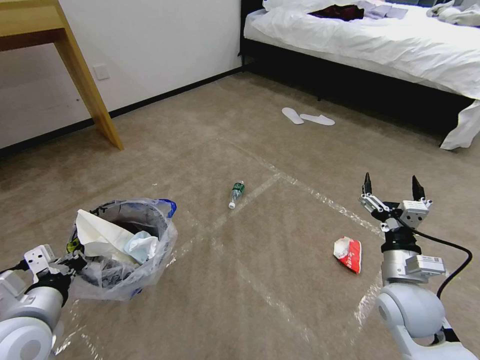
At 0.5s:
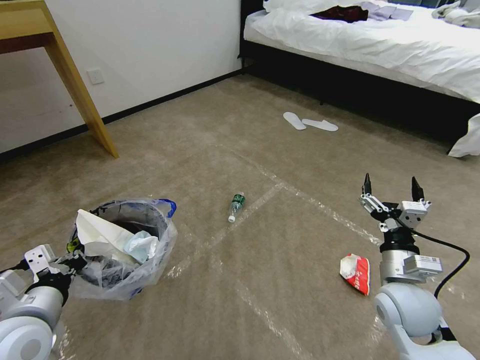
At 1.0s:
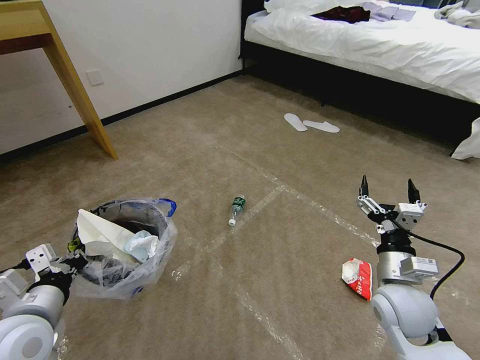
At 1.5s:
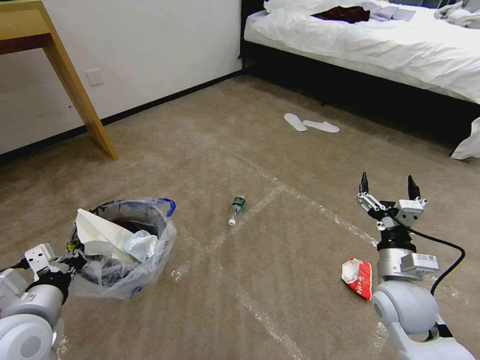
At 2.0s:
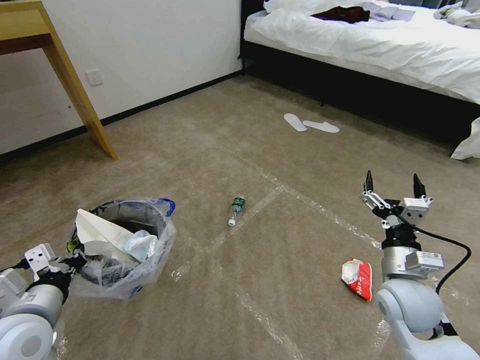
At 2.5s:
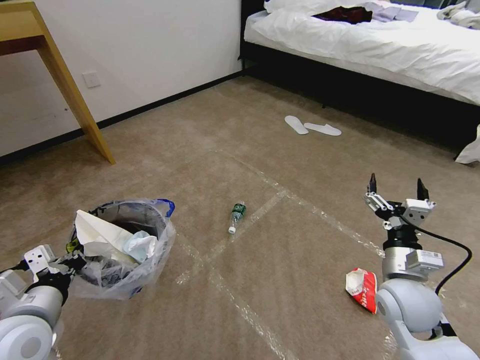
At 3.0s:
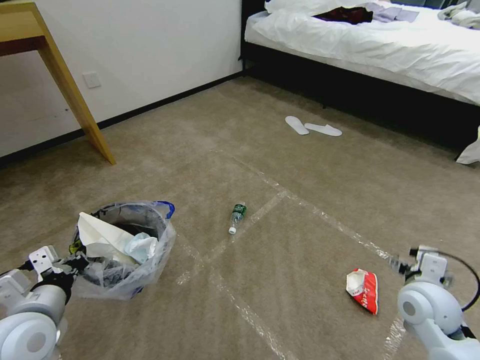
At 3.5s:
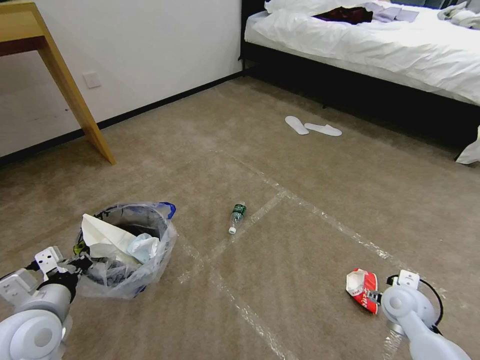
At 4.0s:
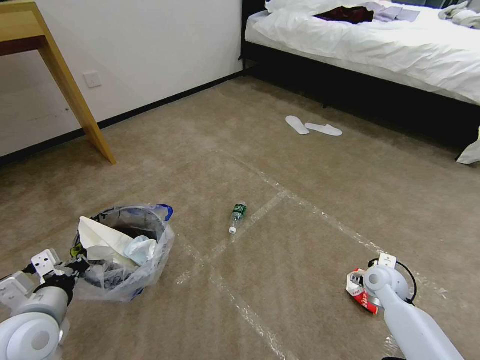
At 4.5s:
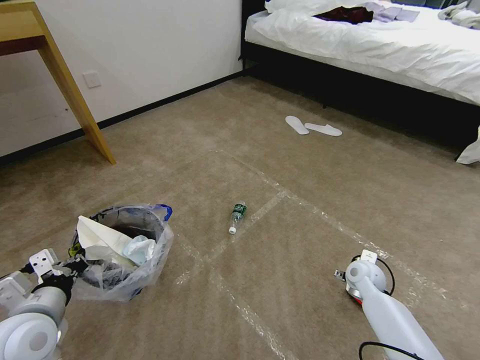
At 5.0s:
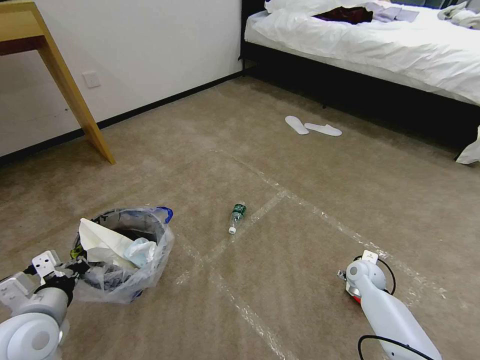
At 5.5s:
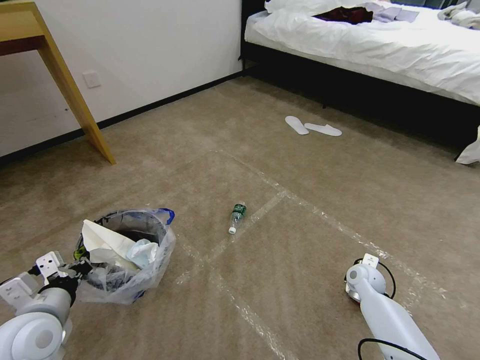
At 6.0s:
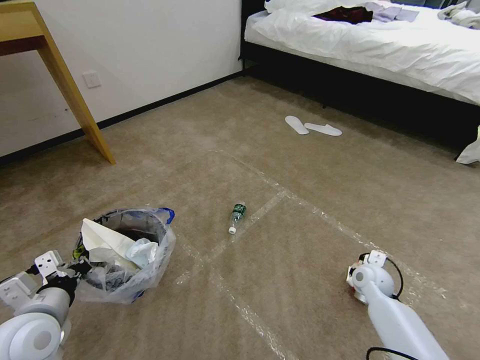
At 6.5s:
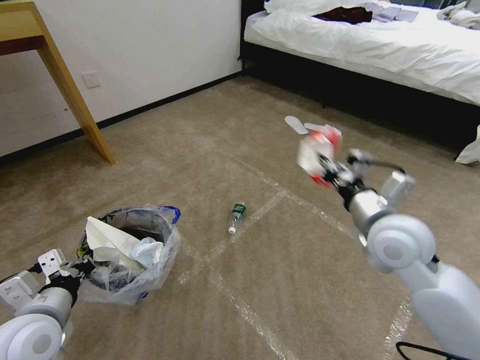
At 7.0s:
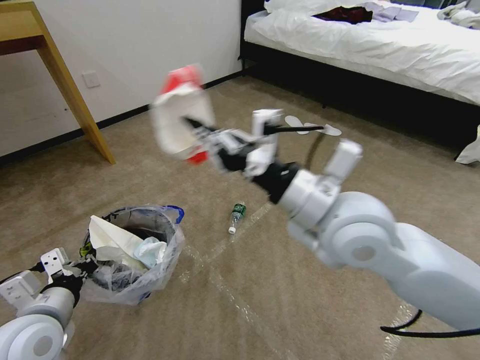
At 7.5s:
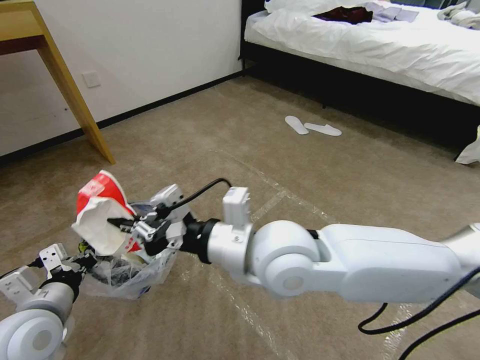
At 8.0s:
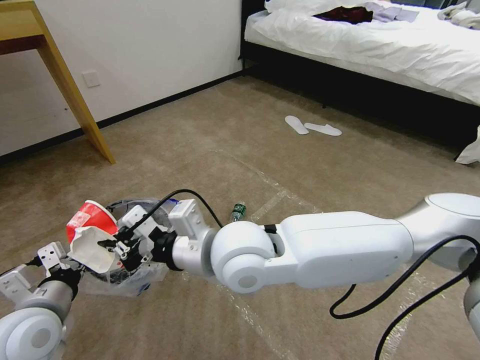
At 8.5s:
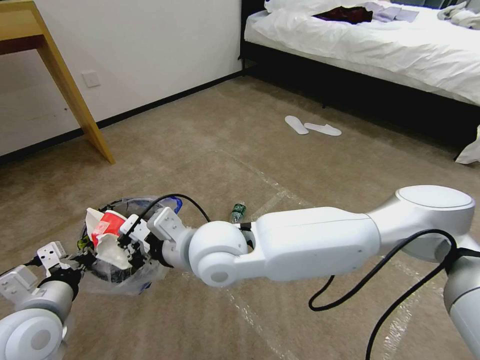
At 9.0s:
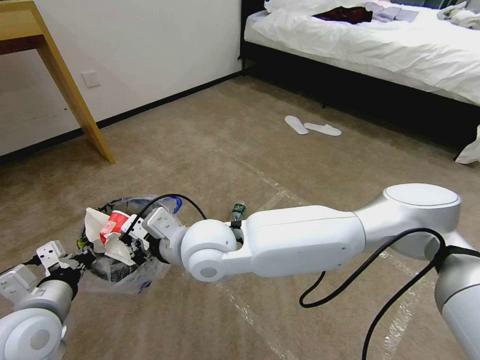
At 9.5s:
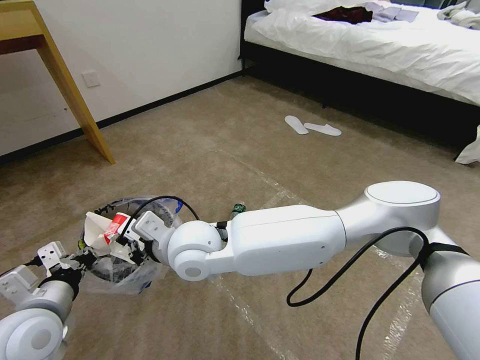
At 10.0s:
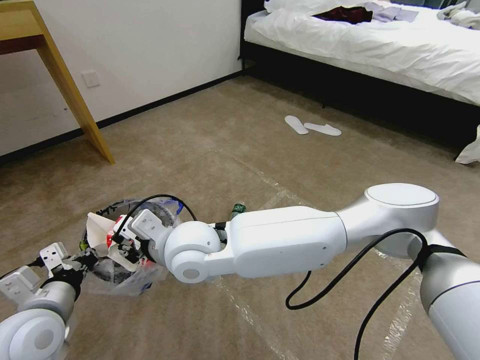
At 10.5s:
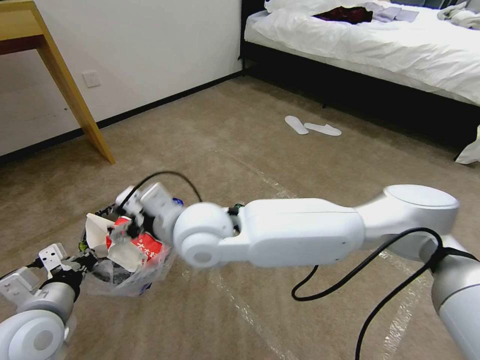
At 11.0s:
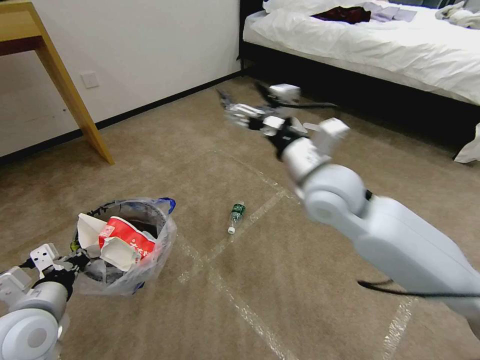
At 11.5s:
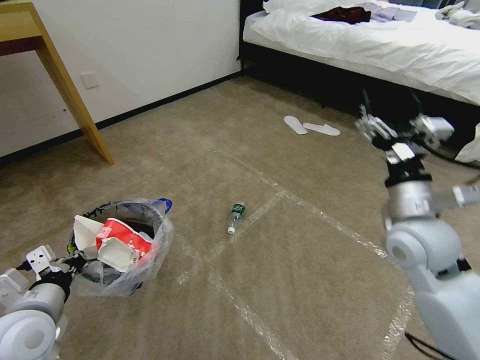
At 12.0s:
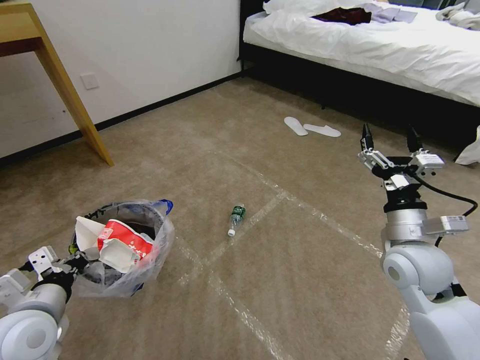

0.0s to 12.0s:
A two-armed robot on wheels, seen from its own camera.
Task of the whole recording: Pick up the trash bin and place the garbage on the floor into it.
0.0s to 2.0s: Both grippers stay about where they are.
2.0s to 4.0s: The right gripper travels downward, forward and to the right by about 15 cm.
4.0s to 6.0s: The right gripper closes its fingers.
6.0s to 8.0s: The right gripper moves to the left and upward, about 50 cm.
8.0s to 10.0s: The right gripper goes about 10 cm to the left.
10.0s to 12.0s: The right gripper travels to the right by approximately 40 cm, and opens its fingers.

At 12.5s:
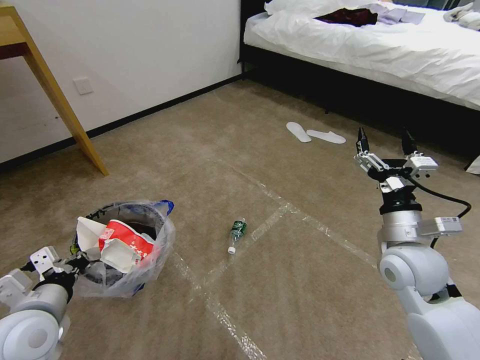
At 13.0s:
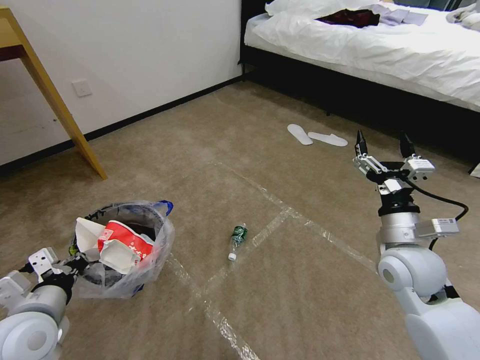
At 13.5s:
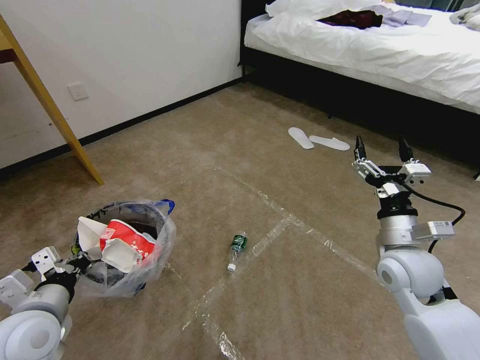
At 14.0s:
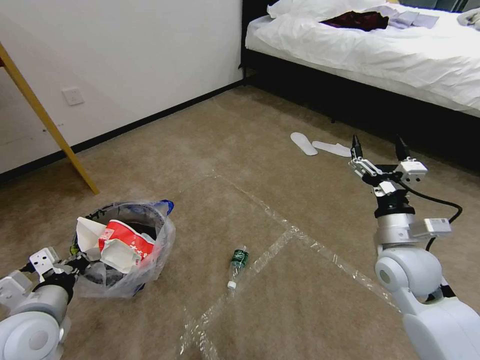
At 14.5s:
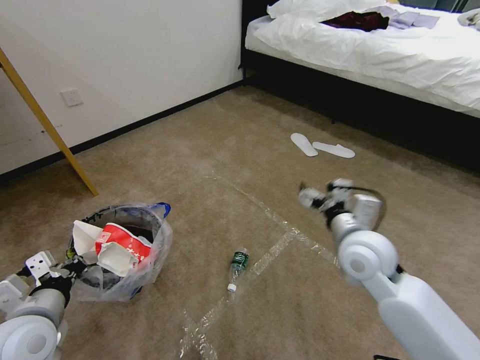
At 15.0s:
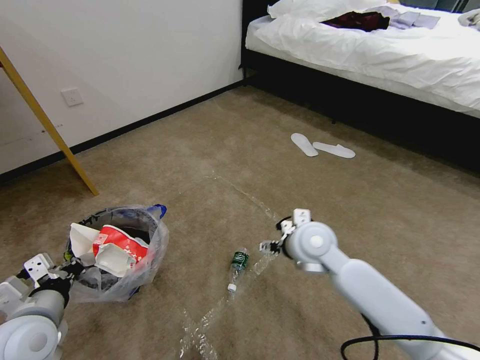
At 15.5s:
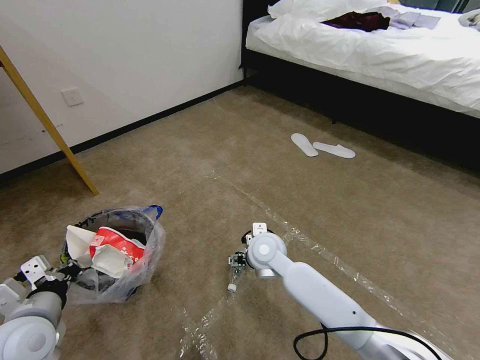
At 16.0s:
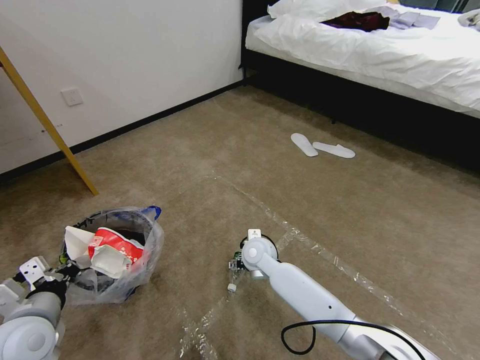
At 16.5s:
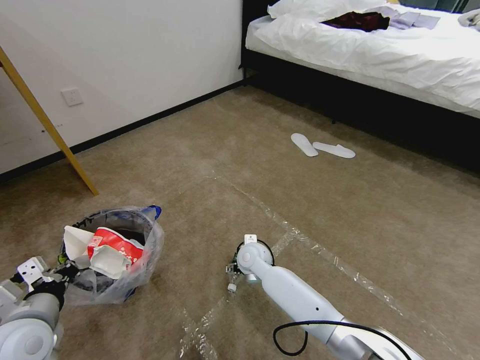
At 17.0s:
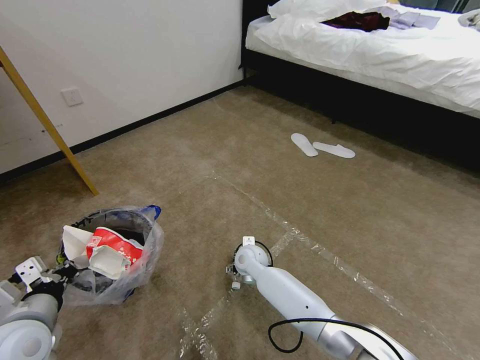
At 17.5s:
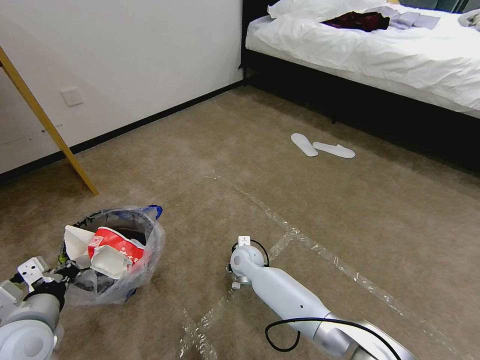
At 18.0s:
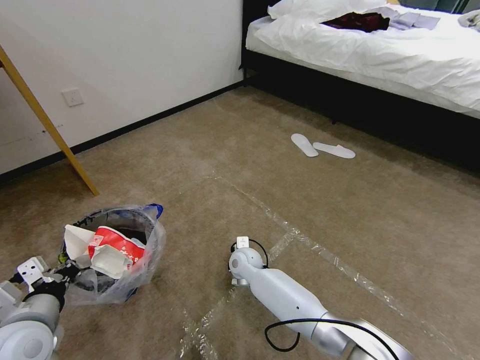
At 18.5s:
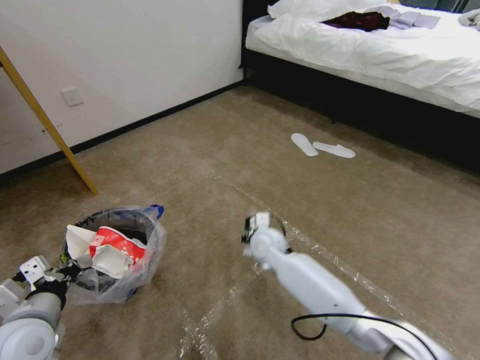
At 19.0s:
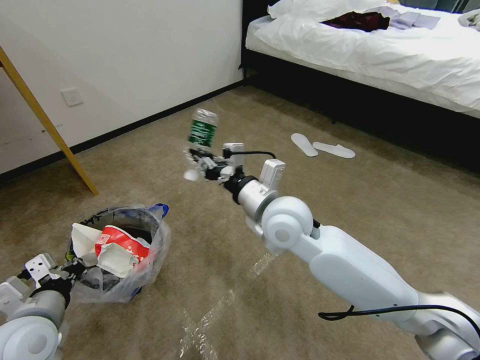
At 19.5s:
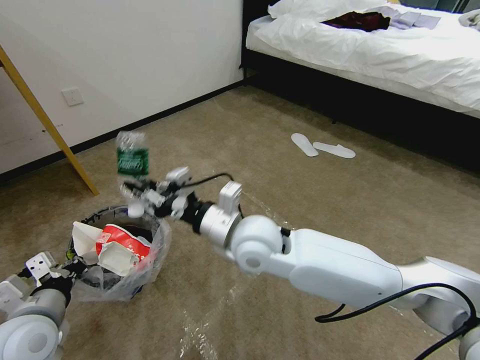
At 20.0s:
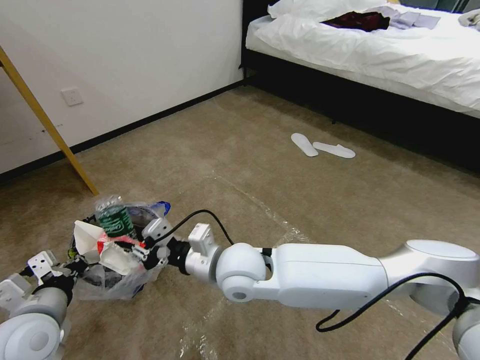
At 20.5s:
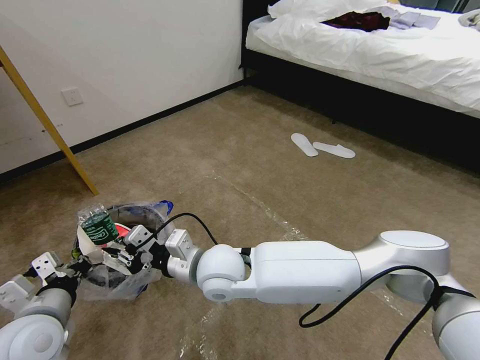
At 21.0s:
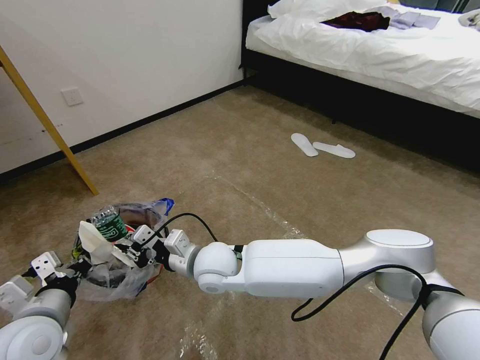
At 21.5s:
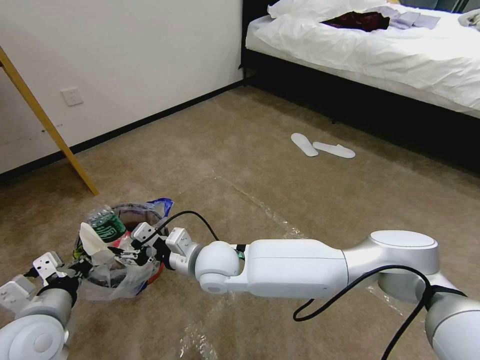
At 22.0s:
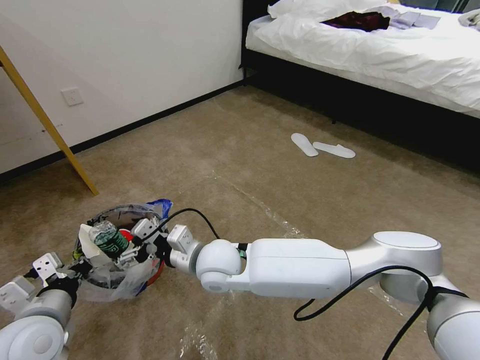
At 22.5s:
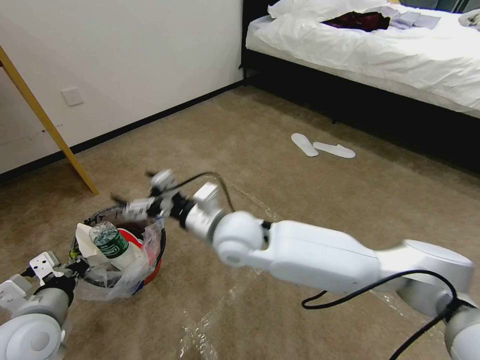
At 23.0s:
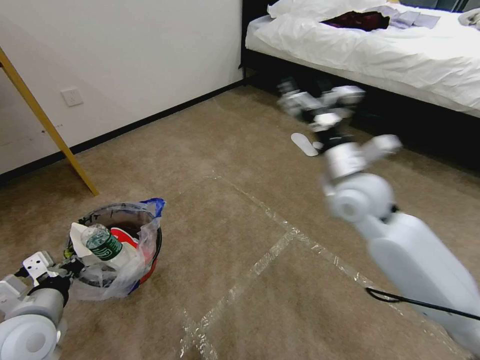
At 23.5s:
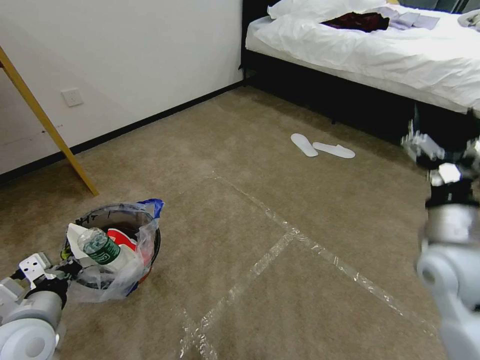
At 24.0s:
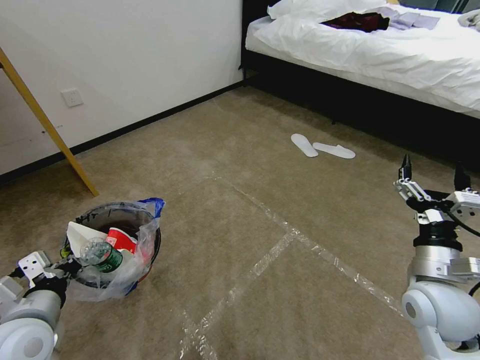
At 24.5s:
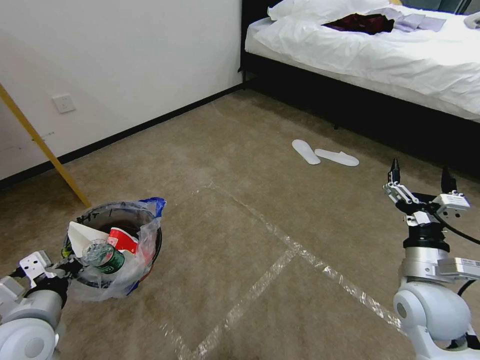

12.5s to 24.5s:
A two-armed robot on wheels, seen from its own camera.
Task of the whole recording: Pick up the trash bin and place the garbage on the floor into it.
12.5s to 14.5s: The right gripper heads to the left, covering roughly 10 cm.
14.5s to 16.5s: The right gripper heads downward, to the left and forward, covering some 30 cm.
16.5s to 18.5s: The right gripper moves upward, approximately 5 cm, and closes.
18.5s to 20.5s: The right gripper shifts about 20 cm backward, upward and to the left.
20.5s to 22.5s: The right gripper opens.
22.5s to 24.5s: The right gripper heads to the right, covering approximately 35 cm.

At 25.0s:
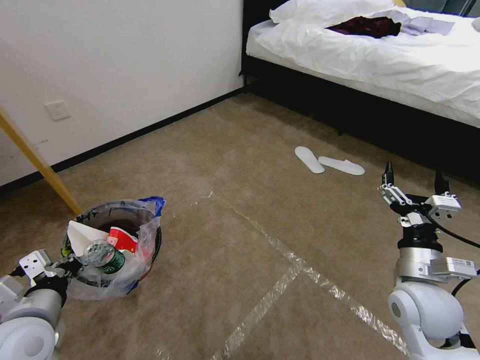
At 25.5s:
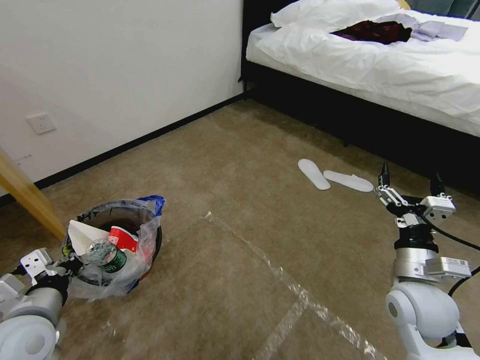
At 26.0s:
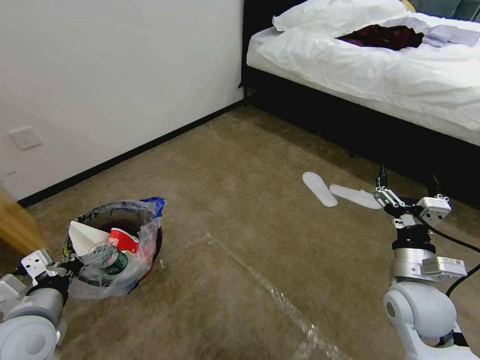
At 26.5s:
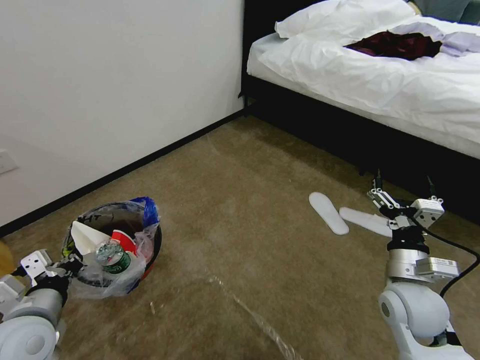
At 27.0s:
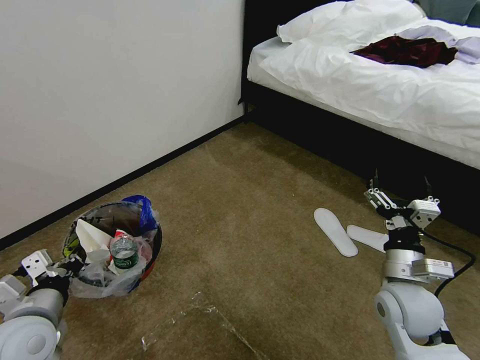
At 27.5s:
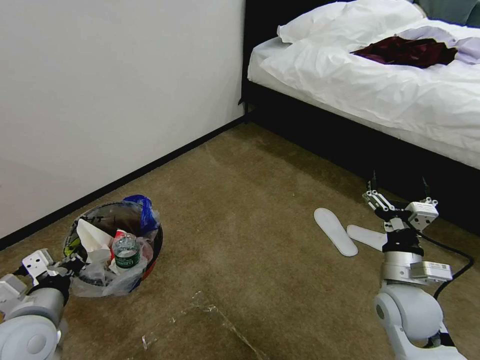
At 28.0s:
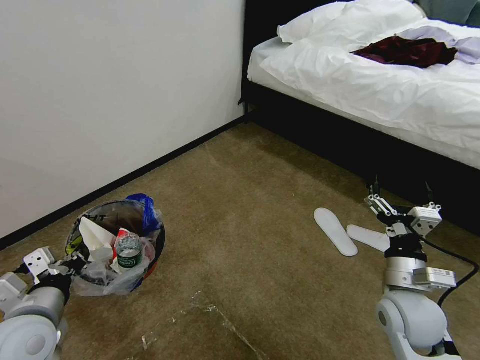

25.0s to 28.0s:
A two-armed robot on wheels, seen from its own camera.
Task of the whole recording: Pick up the trash bin and place the garbage on the floor into it.
26.5s to 28.0s: The grippers stay close to where they were, moving slightly.
